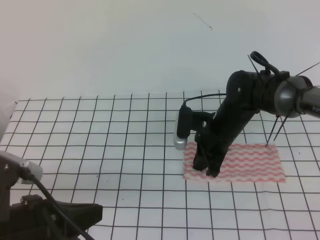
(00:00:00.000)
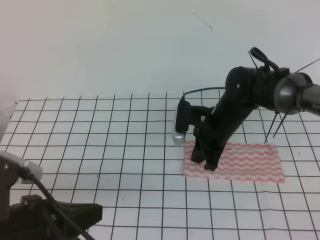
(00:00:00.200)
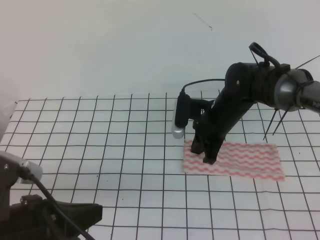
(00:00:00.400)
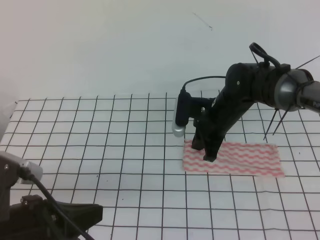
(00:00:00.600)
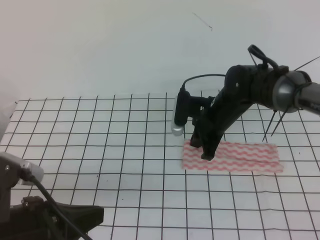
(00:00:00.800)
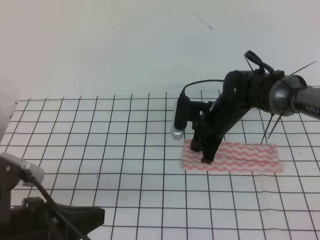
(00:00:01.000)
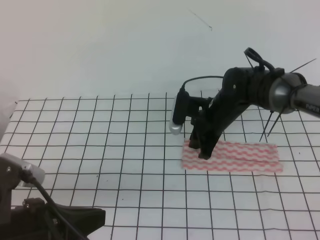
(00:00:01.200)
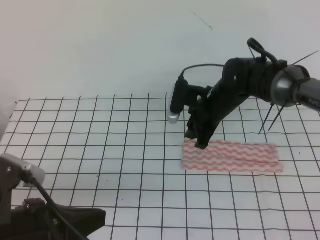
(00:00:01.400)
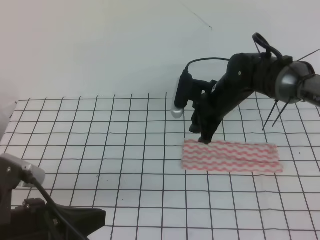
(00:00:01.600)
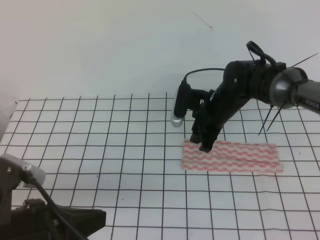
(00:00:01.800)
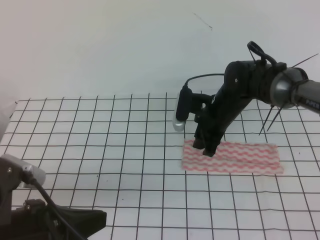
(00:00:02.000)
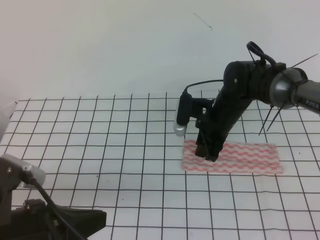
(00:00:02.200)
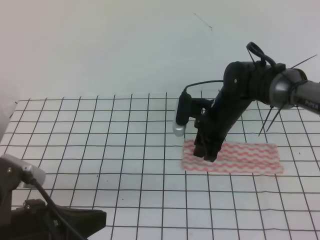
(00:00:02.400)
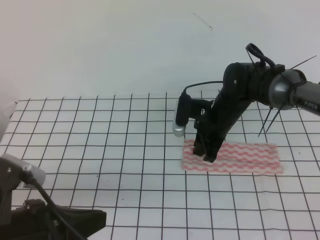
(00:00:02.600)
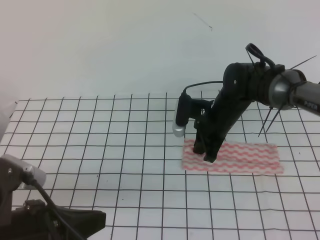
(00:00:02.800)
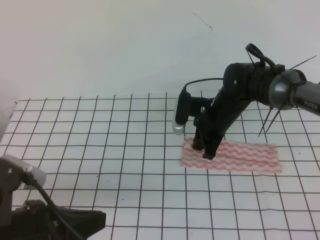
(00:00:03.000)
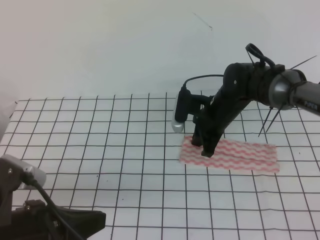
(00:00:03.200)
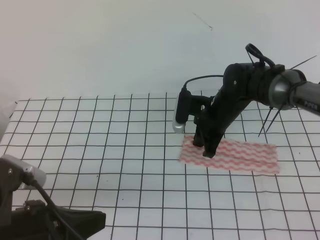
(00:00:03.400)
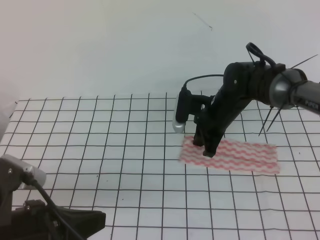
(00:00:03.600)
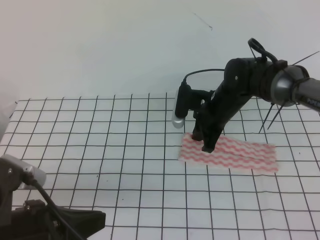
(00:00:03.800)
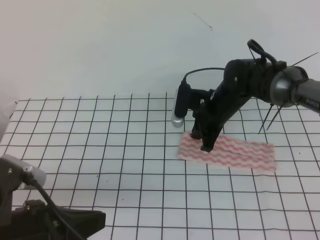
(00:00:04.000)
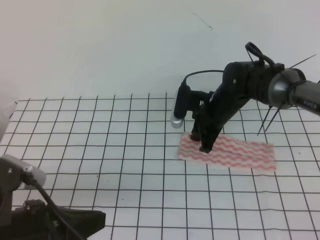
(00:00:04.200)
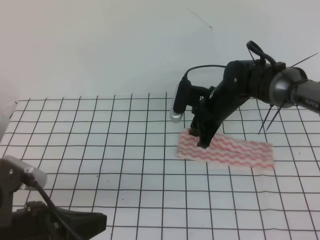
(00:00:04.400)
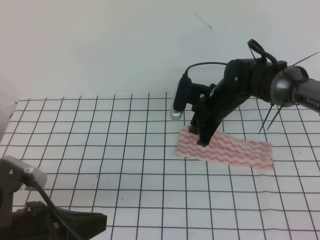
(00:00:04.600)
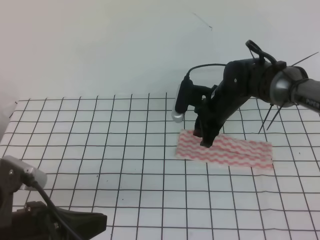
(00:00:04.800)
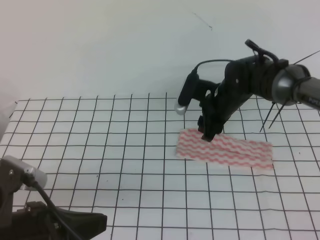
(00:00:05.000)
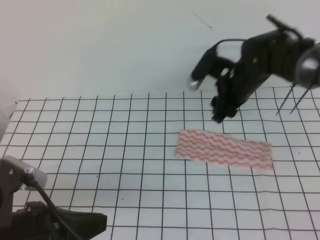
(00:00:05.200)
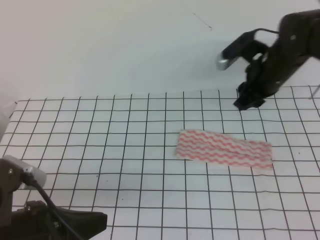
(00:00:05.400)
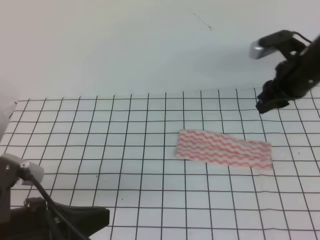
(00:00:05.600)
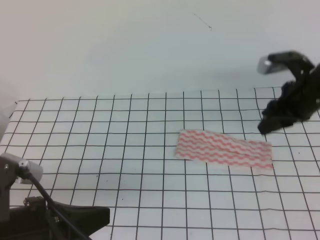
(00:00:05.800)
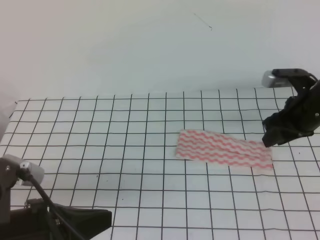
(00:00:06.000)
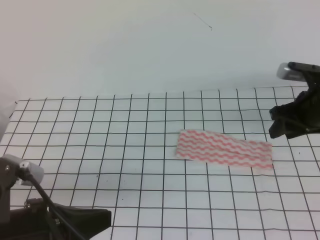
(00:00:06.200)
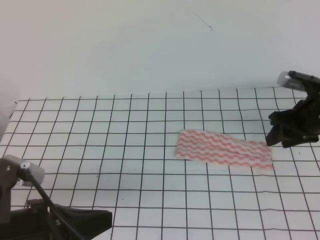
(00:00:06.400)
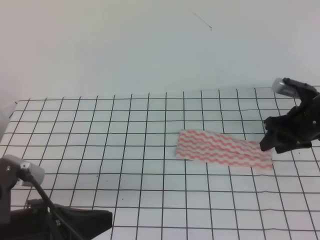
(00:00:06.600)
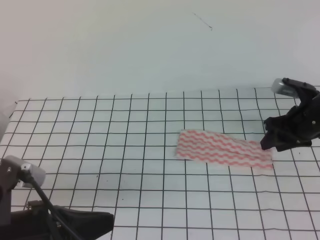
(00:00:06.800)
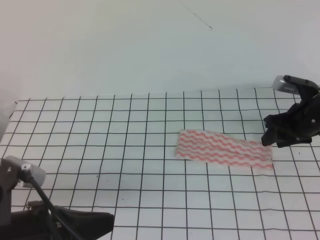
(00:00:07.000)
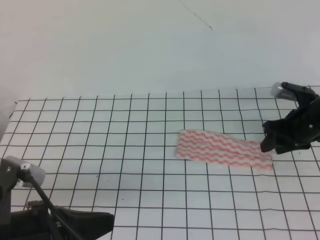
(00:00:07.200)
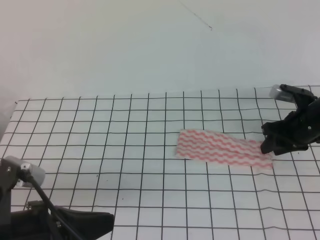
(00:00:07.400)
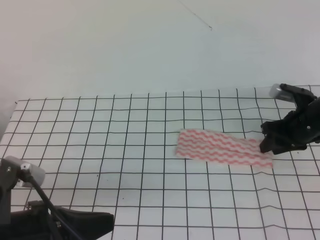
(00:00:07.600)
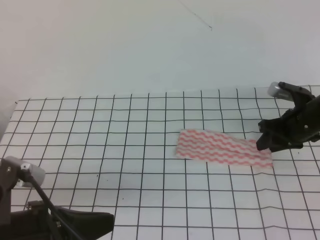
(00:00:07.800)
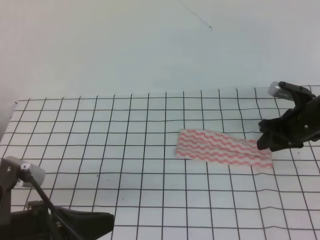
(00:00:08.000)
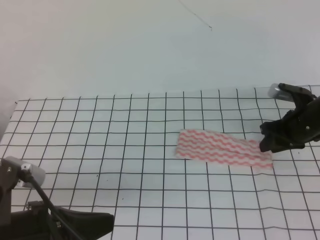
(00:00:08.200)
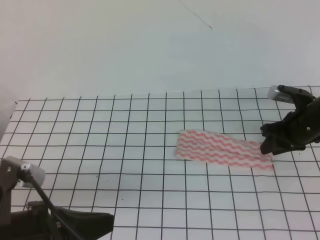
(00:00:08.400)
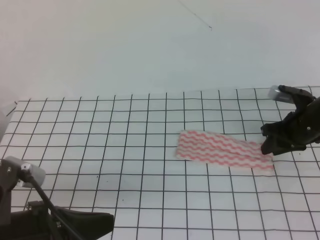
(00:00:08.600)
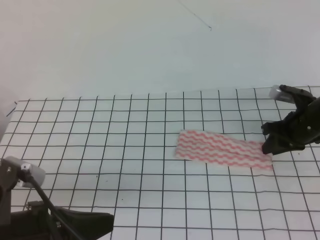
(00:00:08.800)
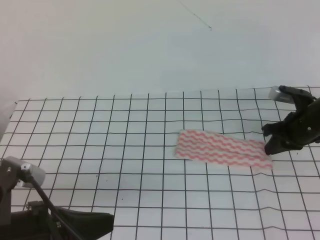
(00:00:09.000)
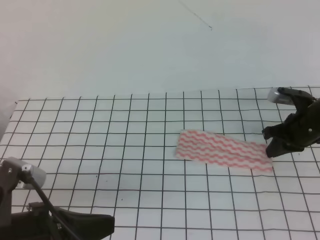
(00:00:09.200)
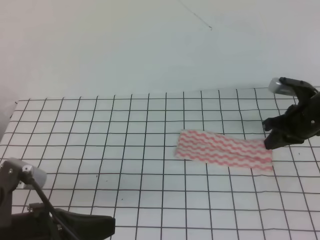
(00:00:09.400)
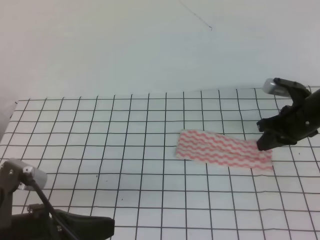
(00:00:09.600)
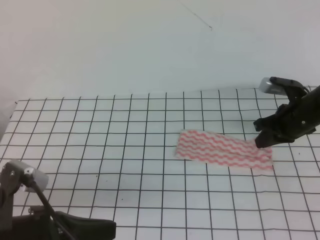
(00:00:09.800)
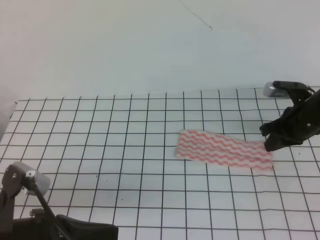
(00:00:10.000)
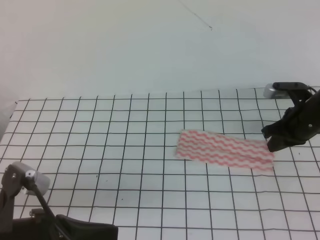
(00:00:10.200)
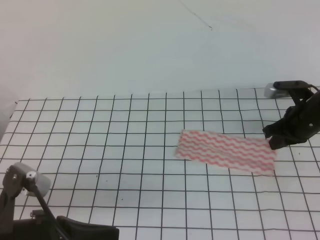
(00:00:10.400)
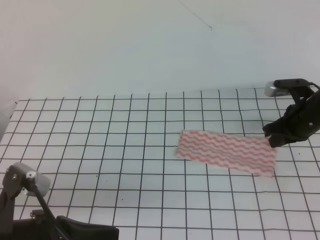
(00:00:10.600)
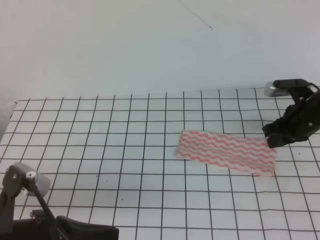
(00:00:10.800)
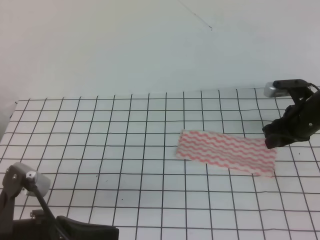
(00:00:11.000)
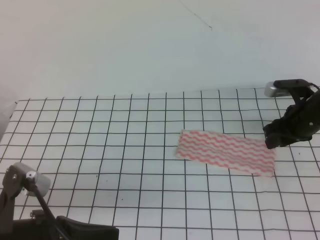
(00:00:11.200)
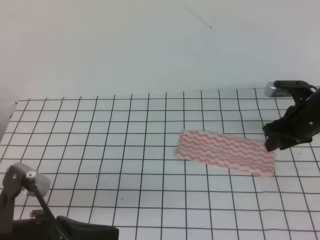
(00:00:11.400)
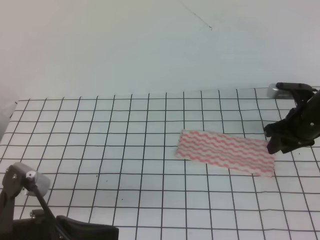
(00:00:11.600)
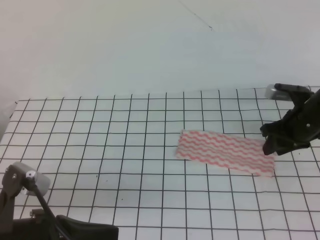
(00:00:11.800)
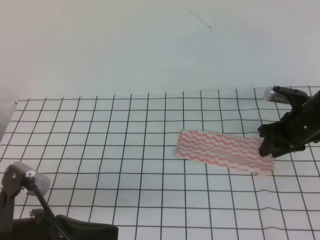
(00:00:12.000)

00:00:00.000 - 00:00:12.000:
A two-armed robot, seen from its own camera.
Step, 00:00:00.000 - 00:00:01.200: Tidy up the towels.
00:00:00.000 - 00:00:01.600: The right gripper opens its fingers.
00:00:01.600 - 00:00:03.000: The right gripper closes its fingers.
00:00:03.000 - 00:00:04.400: The grippers make only small movements.
00:00:04.400 - 00:00:06.000: The right gripper travels to the right by some 15 cm, and opens.
00:00:06.000 - 00:00:07.600: The right gripper moves downward, about 10 cm.
00:00:07.600 - 00:00:09.000: The right gripper closes its fingers.
00:00:09.000 - 00:00:10.400: The grippers move only a little.
00:00:10.400 - 00:00:12.000: The right gripper opens its fingers.

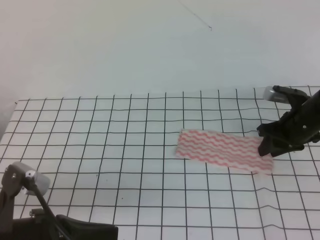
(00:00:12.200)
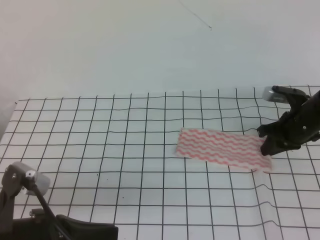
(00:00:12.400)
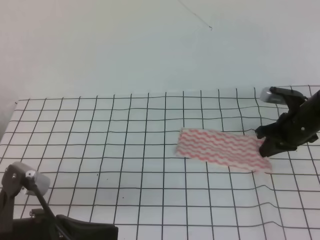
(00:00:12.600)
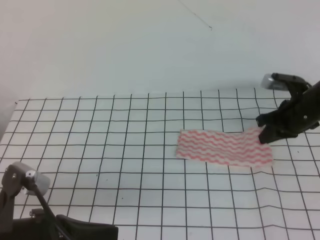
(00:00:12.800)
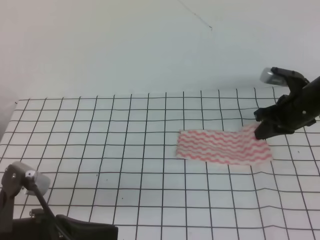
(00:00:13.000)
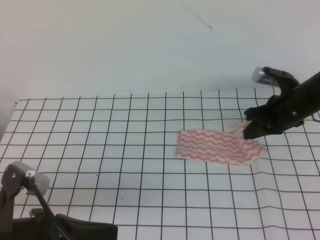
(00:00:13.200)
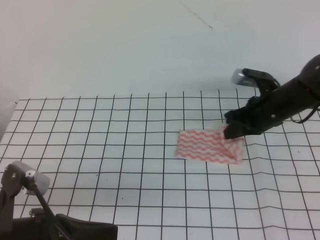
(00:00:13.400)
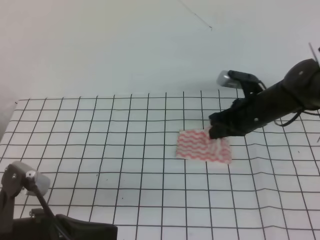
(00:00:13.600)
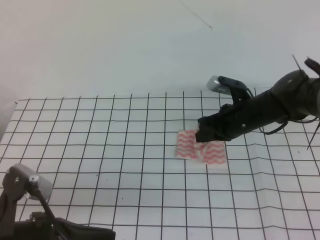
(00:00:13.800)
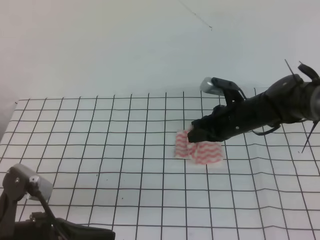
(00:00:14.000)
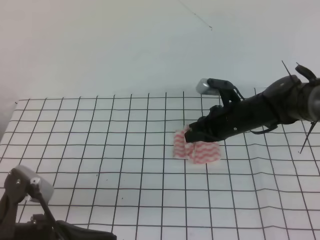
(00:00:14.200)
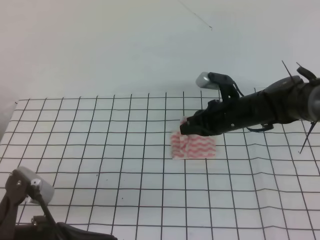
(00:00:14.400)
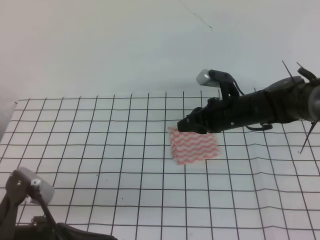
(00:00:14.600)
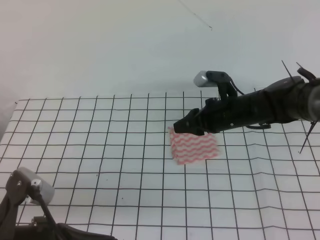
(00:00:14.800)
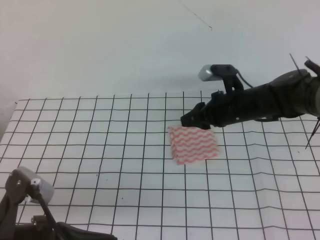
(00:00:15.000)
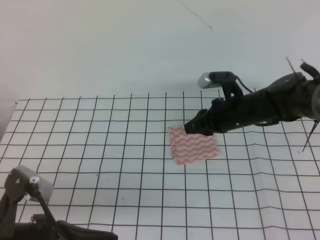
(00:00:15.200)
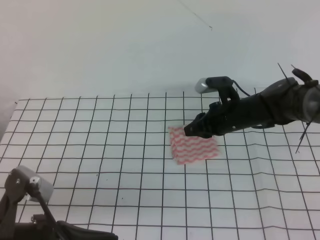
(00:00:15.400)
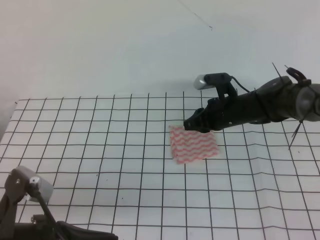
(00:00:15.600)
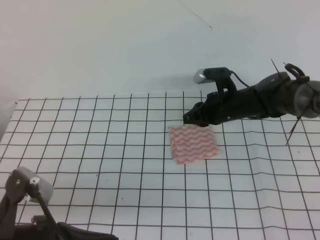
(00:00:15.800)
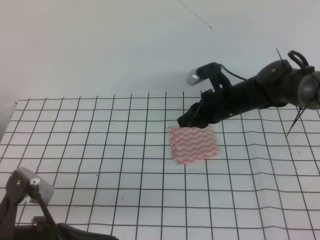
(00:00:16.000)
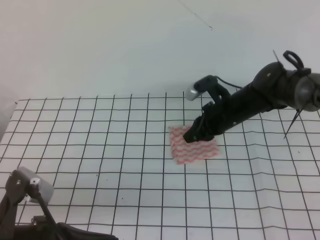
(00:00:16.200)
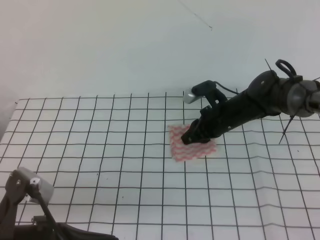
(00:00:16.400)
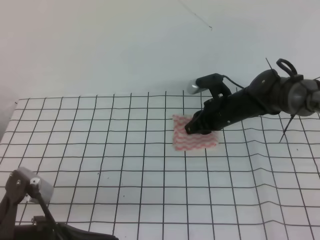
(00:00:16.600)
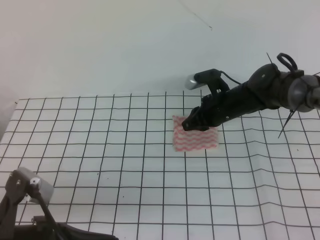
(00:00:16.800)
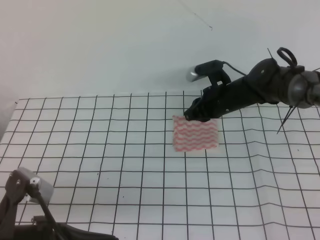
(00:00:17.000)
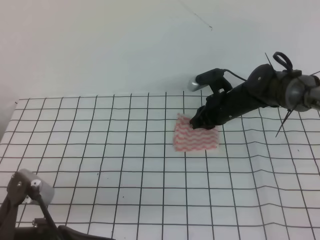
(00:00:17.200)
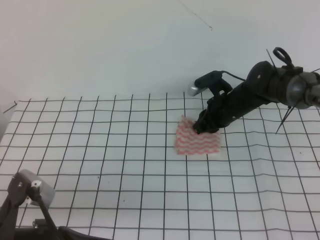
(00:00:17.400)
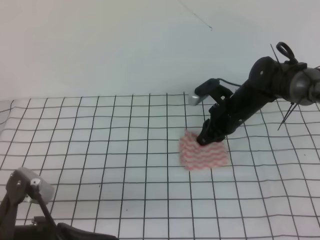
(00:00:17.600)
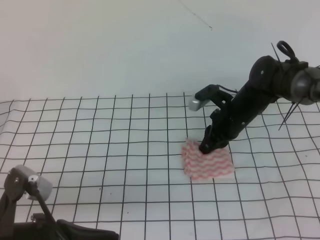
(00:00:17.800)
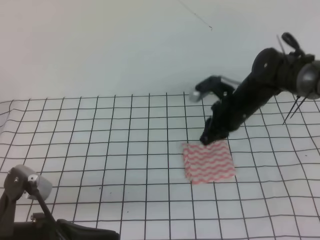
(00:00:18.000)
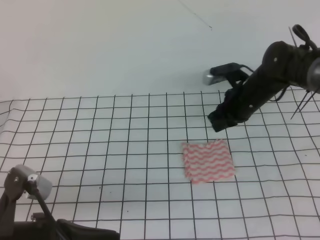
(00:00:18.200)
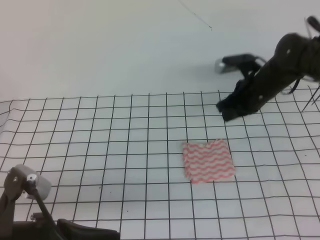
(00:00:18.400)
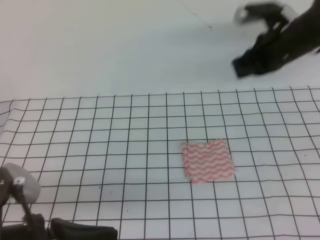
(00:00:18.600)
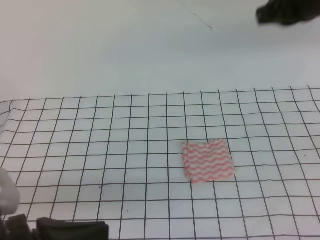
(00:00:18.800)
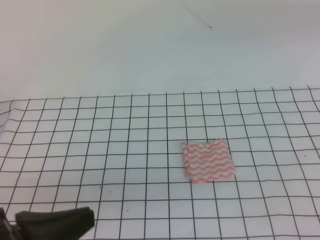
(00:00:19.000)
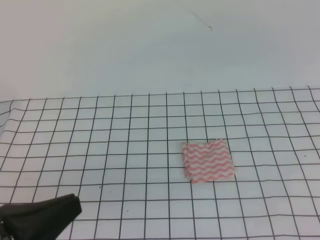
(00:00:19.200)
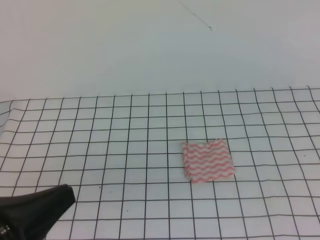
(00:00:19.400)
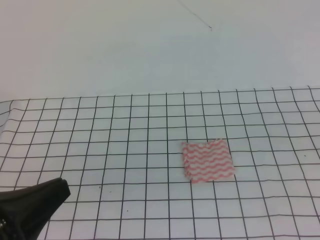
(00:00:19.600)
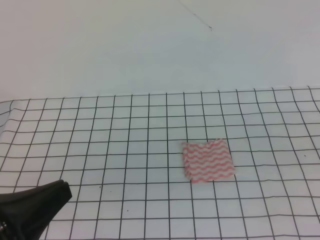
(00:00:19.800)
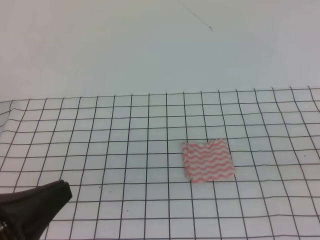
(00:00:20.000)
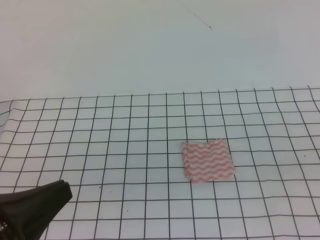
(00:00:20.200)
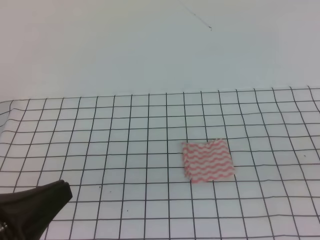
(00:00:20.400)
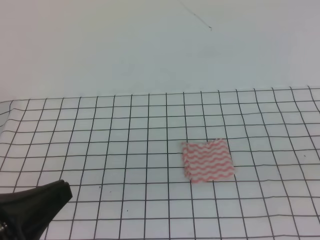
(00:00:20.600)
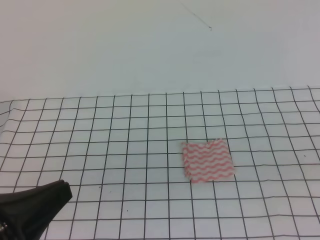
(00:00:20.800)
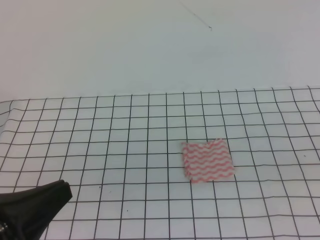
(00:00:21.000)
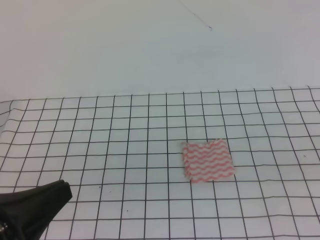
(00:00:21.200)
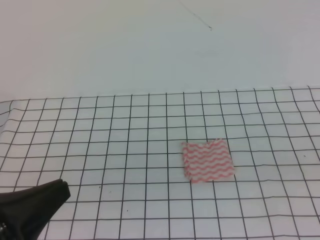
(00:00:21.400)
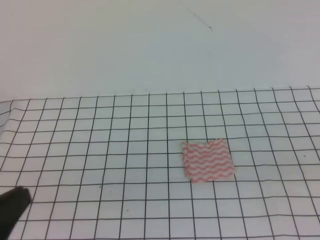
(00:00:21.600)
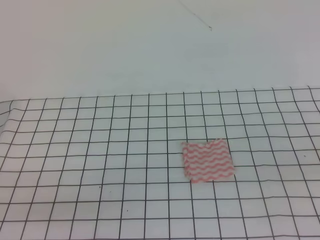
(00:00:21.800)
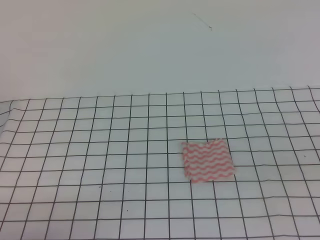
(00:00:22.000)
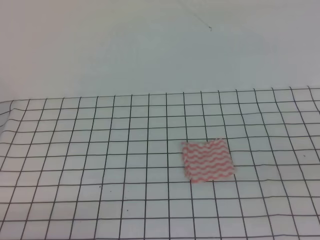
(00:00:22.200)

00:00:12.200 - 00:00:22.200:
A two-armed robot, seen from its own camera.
00:00:12.200 - 00:00:13.600: The right gripper travels to the left by roughly 10 cm, and closes up.
00:00:13.600 - 00:00:15.000: The right gripper opens its fingers.
00:00:15.000 - 00:00:16.400: The grippers make only small movements.
00:00:18.000 - 00:00:19.400: The right gripper is displaced backward, upward and to the right by roughly 40 cm, and closes up; the left gripper shifts by roughly 5 cm.
00:00:20.800 - 00:00:22.200: The left gripper moves downward and to the left, roughly 15 cm.
